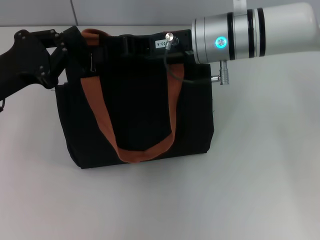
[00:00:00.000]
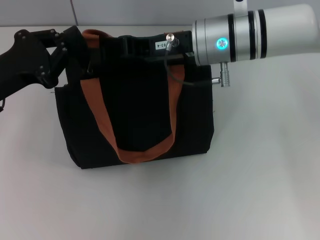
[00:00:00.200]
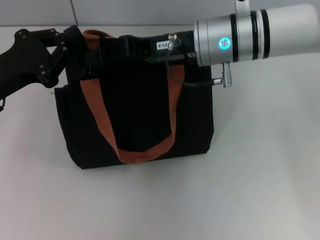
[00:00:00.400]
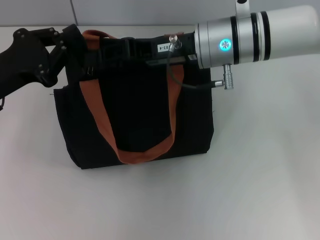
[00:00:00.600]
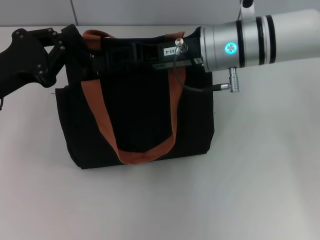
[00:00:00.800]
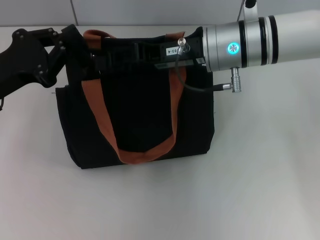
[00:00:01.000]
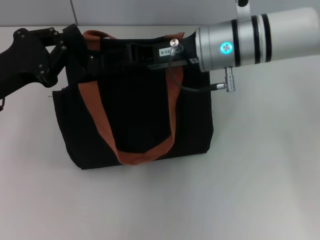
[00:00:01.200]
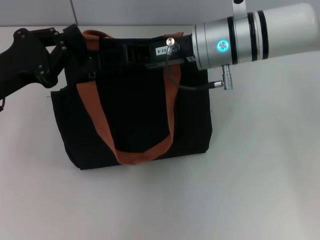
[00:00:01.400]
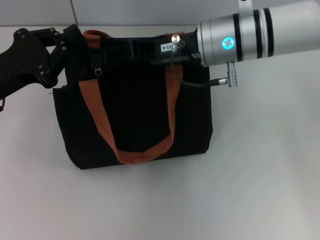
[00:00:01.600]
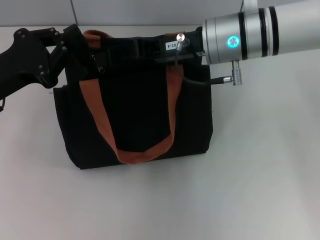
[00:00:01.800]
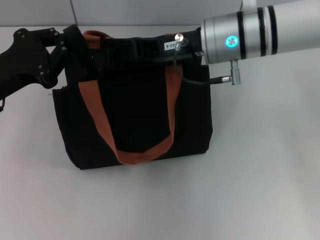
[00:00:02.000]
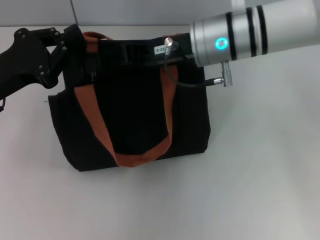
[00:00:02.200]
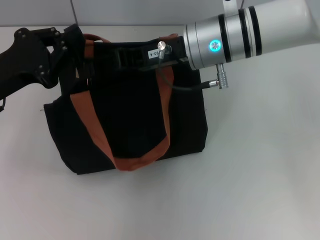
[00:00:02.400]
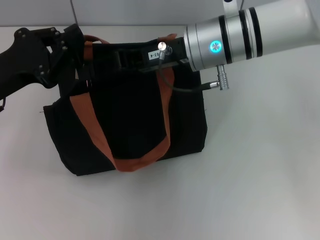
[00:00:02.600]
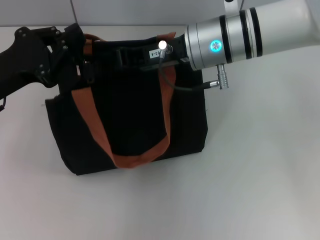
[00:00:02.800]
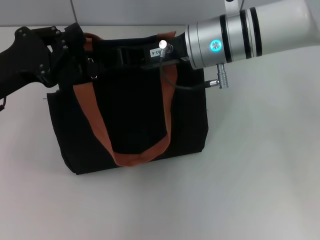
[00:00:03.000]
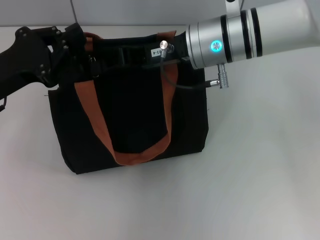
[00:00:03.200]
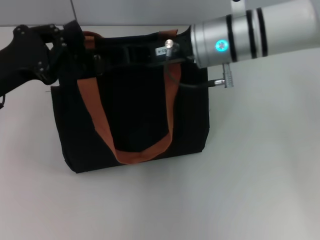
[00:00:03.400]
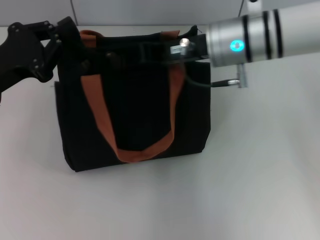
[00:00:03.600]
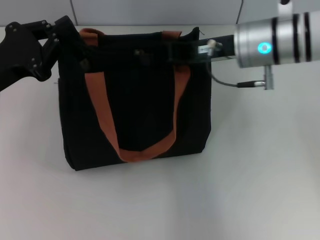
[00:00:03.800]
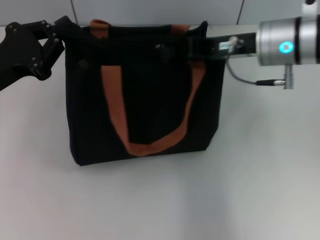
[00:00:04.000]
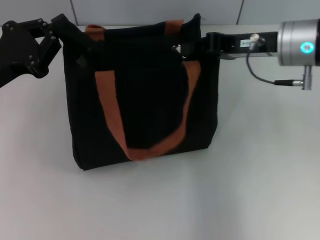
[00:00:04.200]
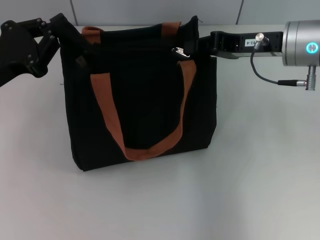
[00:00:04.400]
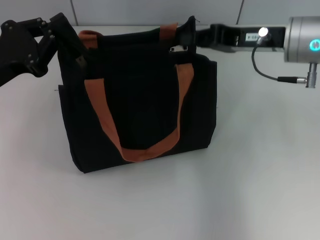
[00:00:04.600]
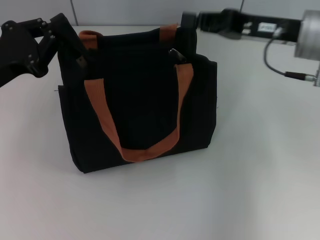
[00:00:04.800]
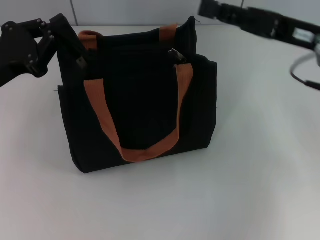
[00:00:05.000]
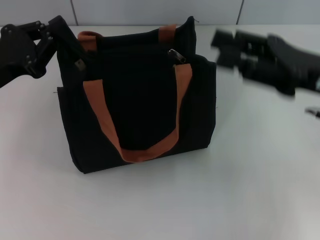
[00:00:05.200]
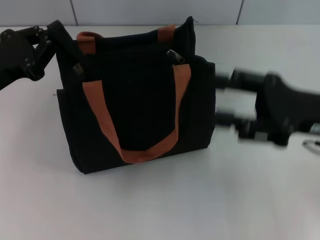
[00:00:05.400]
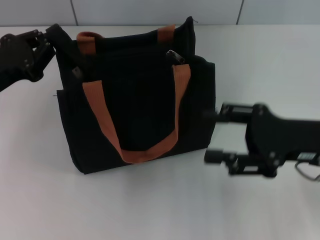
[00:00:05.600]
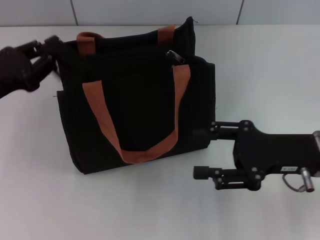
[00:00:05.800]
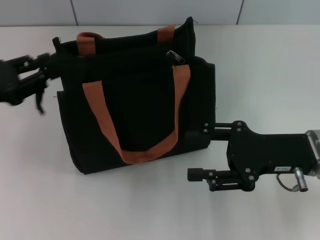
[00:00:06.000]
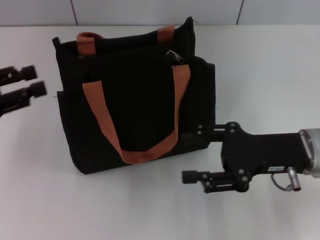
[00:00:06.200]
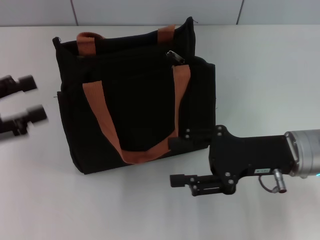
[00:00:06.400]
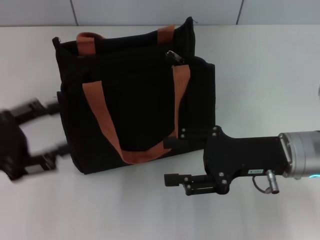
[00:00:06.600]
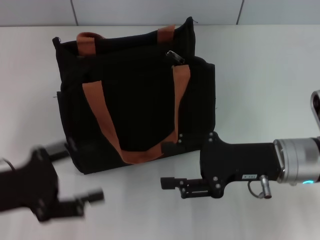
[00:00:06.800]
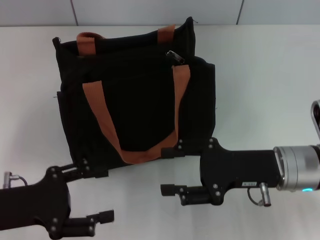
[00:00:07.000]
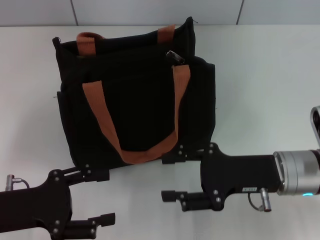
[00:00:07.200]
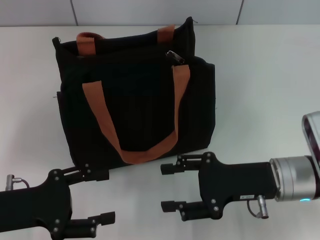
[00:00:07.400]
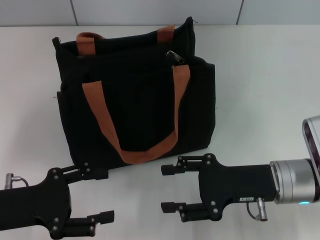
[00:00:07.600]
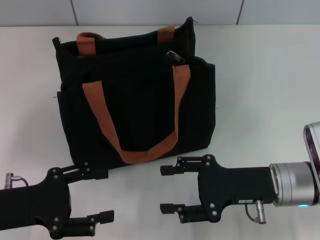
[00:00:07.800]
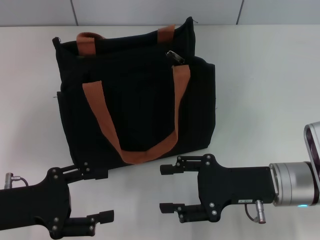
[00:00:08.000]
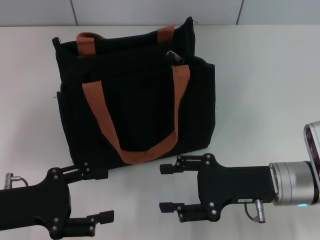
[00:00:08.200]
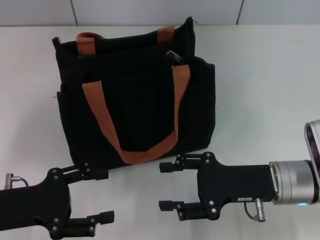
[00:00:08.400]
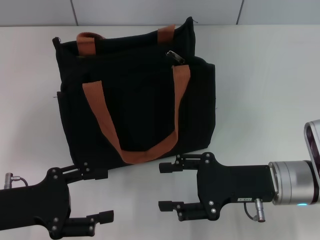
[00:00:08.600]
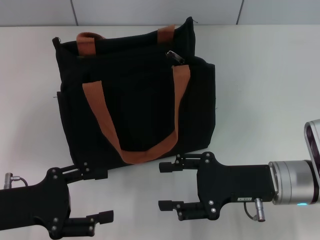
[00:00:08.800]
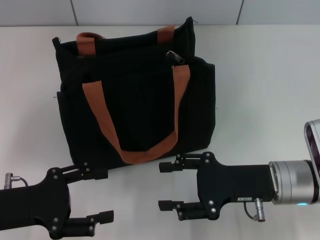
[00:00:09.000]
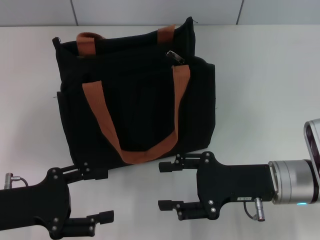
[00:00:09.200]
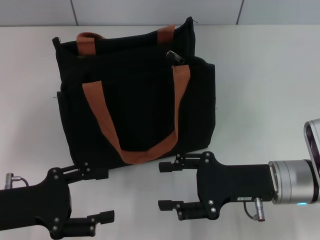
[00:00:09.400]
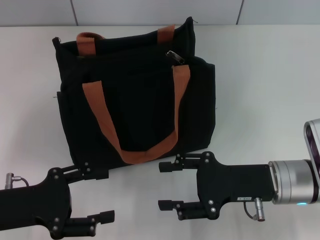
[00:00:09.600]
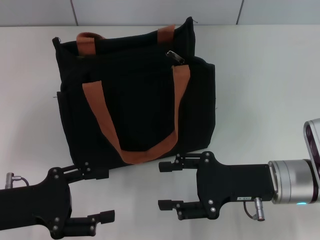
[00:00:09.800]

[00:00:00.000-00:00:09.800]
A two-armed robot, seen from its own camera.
Step, 00:00:00.000 to 00:00:04.800: Pull up the zipper with your right hand.
Step, 00:00:05.000 to 00:00:06.000: Grab the zipper with your left hand.
00:00:00.000 to 00:00:01.400: The right gripper opens.
00:00:01.400 to 00:00:02.800: Neither gripper changes place.
00:00:02.800 to 00:00:04.200: The right gripper travels to the right by about 10 cm, and closes its fingers.
00:00:04.200 to 00:00:05.600: The right gripper heads backward and downward, covering some 15 cm, and opens.
00:00:05.600 to 00:00:07.000: The left gripper moves backward and downward, about 10 cm, and opens up; the right gripper shifts by approximately 5 cm.
00:00:07.000 to 00:00:08.400: The grippers make only small movements.
00:00:08.400 to 00:00:09.800: Both grippers stay put.

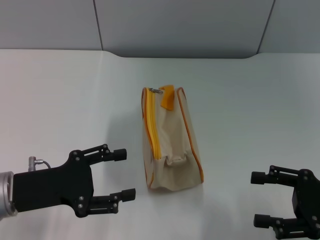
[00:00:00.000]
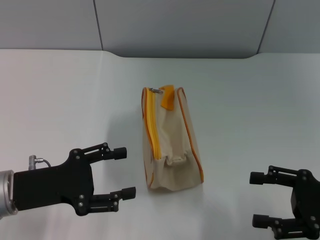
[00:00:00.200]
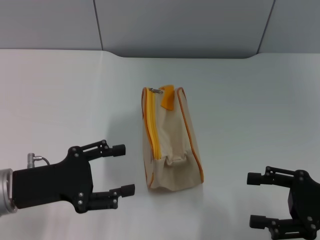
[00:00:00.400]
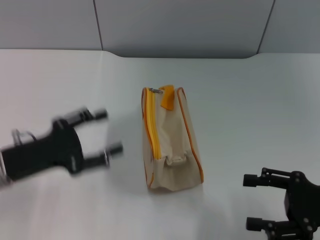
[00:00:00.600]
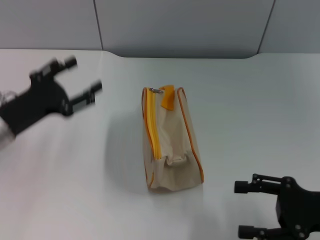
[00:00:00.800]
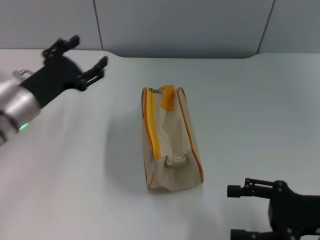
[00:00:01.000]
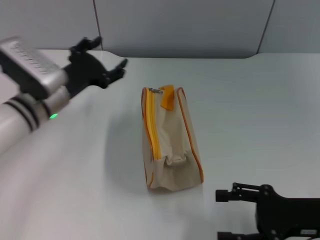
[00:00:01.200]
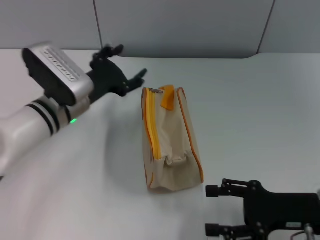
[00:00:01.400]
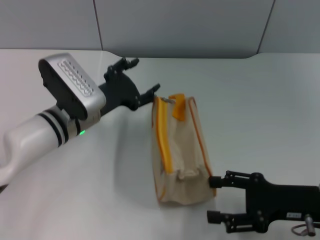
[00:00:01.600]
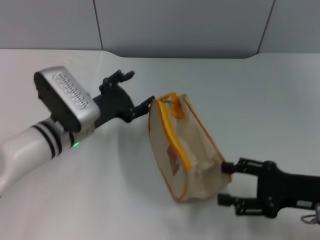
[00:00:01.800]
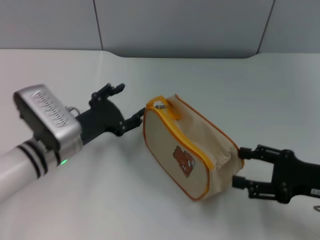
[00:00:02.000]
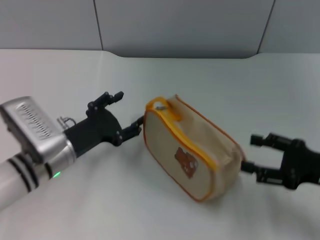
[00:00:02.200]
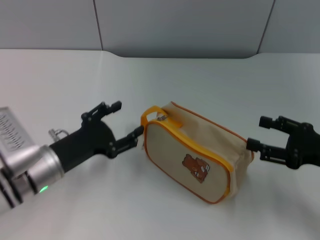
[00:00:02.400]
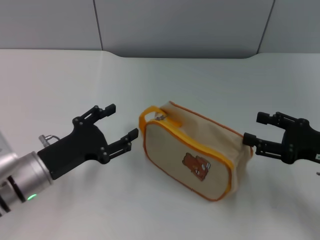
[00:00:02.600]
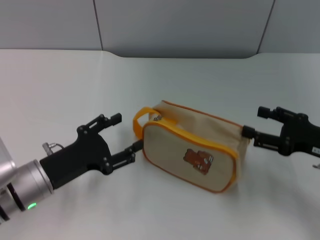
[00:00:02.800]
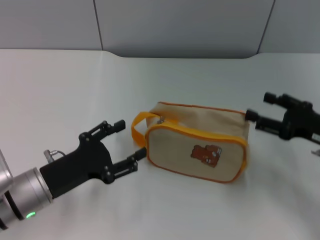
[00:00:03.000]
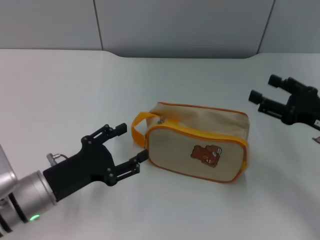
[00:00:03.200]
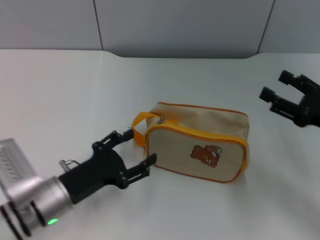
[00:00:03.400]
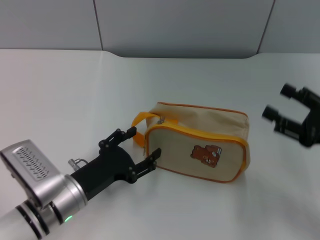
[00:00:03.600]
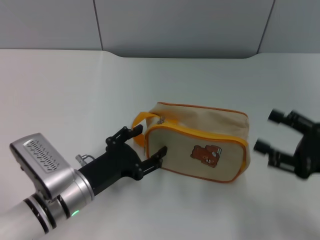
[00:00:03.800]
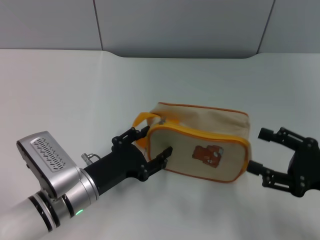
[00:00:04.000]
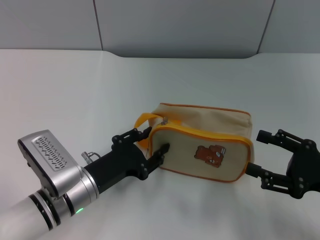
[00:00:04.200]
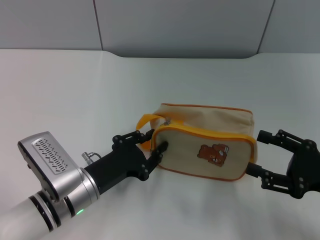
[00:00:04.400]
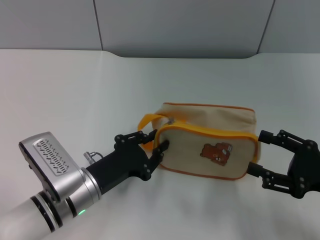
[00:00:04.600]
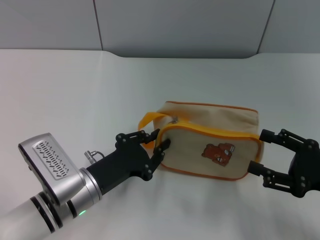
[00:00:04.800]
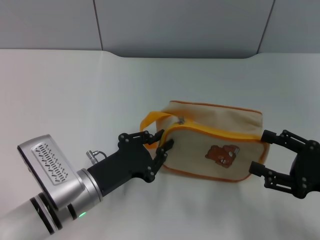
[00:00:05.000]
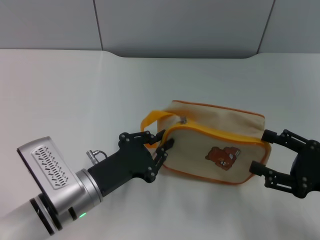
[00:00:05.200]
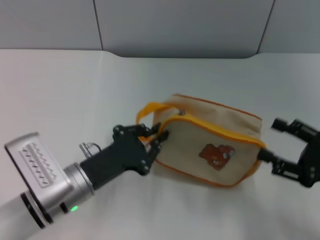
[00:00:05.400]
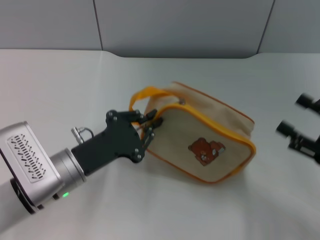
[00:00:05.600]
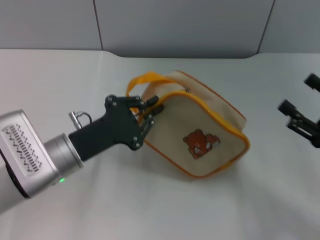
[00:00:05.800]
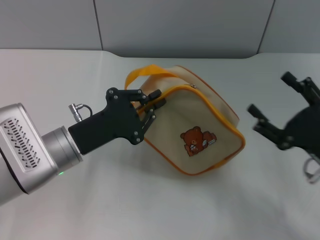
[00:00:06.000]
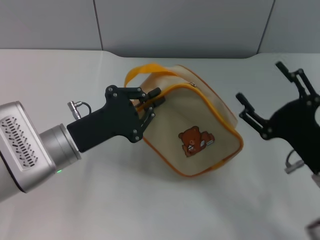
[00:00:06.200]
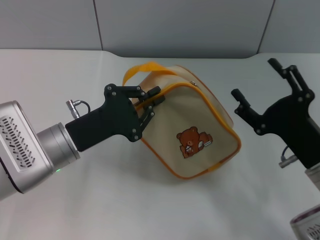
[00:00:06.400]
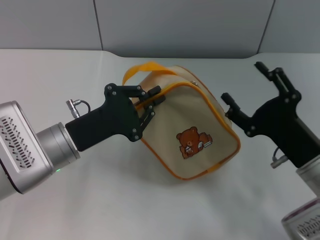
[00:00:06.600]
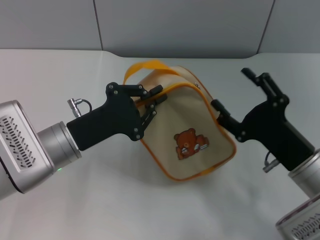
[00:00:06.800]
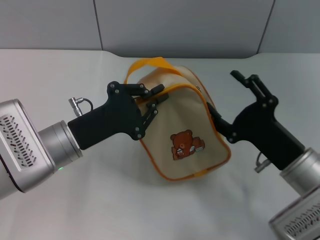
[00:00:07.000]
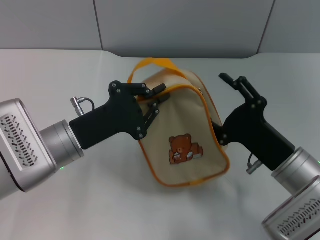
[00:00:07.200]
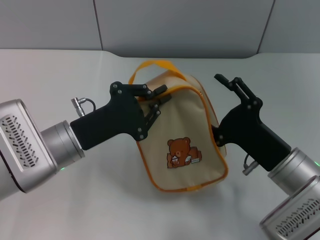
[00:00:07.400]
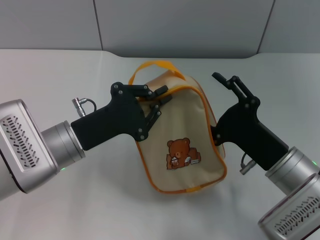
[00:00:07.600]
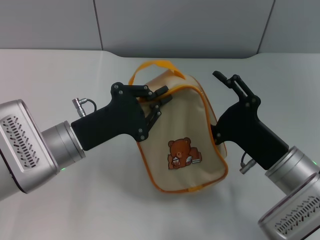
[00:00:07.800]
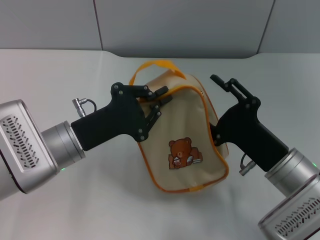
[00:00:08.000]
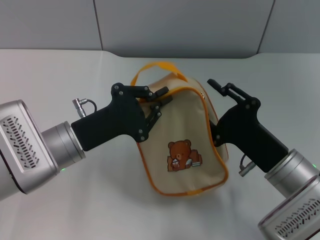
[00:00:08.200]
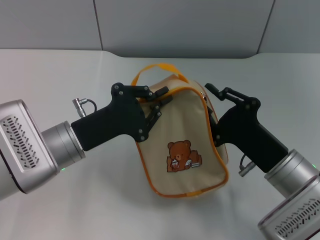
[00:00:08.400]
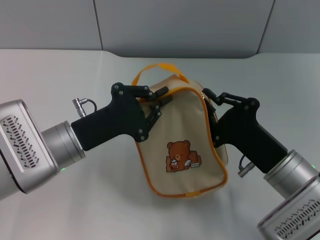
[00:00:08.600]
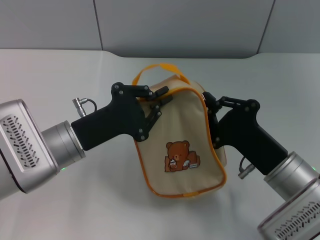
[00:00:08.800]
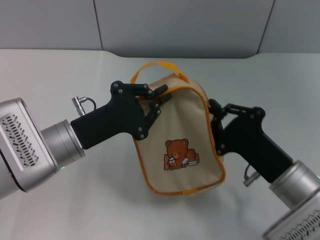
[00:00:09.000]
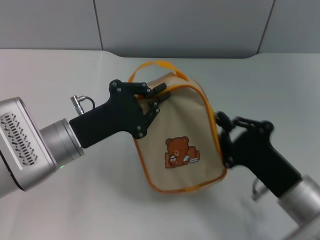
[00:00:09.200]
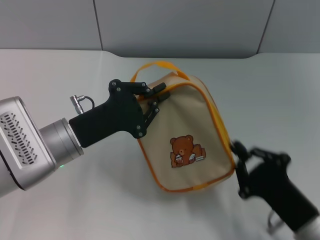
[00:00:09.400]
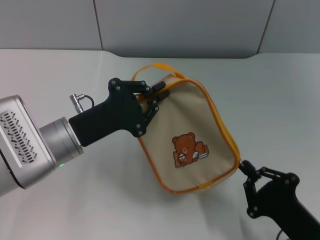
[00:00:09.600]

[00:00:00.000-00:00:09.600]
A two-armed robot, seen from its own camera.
Step, 00:00:00.000 to 00:00:05.600: Pick up the bag with left gripper.
00:00:00.000 to 00:00:01.600: The left gripper heads forward and to the right, covering about 15 cm, while the right gripper travels to the left by approximately 5 cm.
00:00:01.600 to 00:00:03.200: The right gripper moves forward and to the right, some 10 cm, while the left gripper heads backward and to the left, covering approximately 15 cm.
00:00:03.200 to 00:00:04.800: The left gripper shifts roughly 5 cm to the right, and closes. The right gripper moves backward, some 5 cm.
00:00:04.800 to 00:00:06.400: The left gripper is displaced upward by some 5 cm. The right gripper goes some 10 cm to the left.
00:00:08.000 to 00:00:09.600: The right gripper travels backward by roughly 10 cm, and closes.

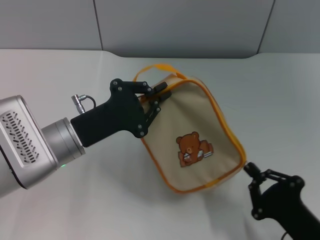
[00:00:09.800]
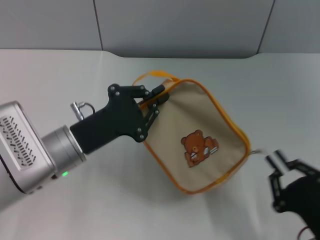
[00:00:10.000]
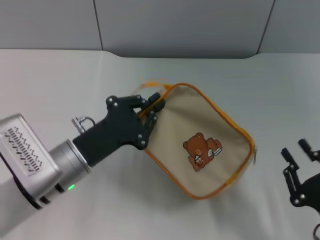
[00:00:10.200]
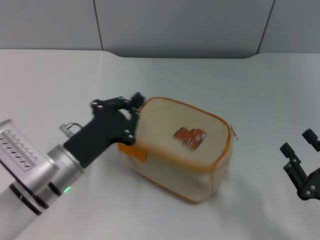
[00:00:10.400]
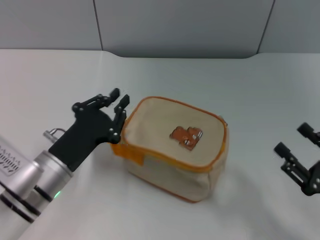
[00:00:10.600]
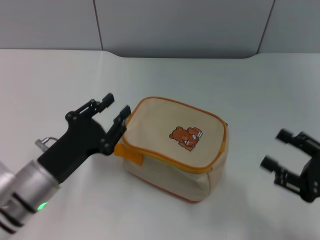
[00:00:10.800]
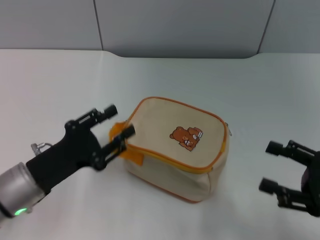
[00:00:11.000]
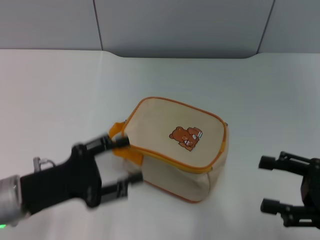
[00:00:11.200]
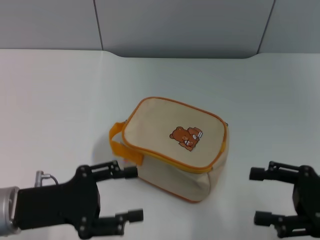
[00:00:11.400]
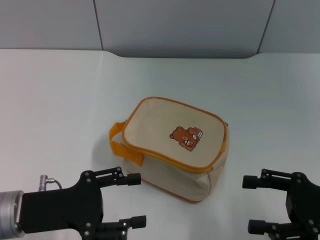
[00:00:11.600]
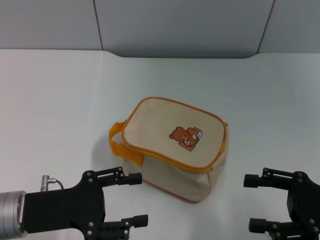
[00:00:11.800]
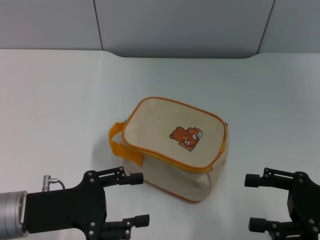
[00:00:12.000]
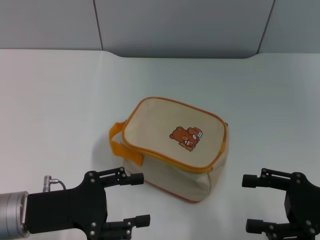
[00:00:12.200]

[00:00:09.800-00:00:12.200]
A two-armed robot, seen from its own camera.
Step, 00:00:10.200 to 00:00:10.600: Place the bag on the table with left gripper.
00:00:09.800 to 00:00:11.000: The right gripper is displaced to the right, upward and forward by approximately 15 cm, and opens. Meanwhile the left gripper travels backward and to the left by some 10 cm, and opens up.
00:00:11.000 to 00:00:12.200: The left gripper opens.
